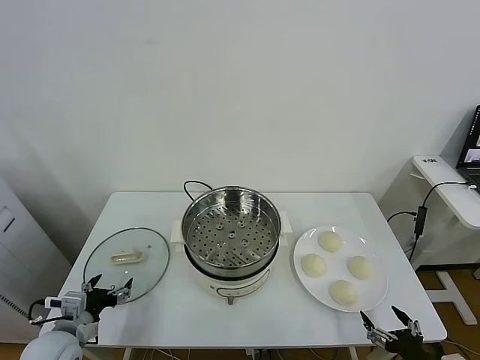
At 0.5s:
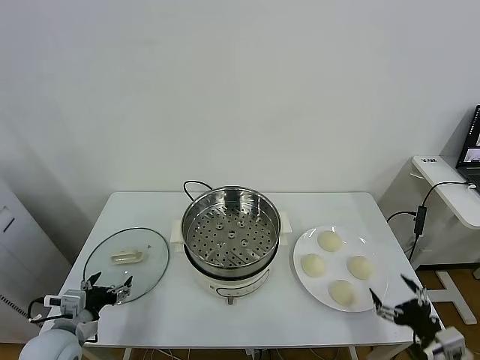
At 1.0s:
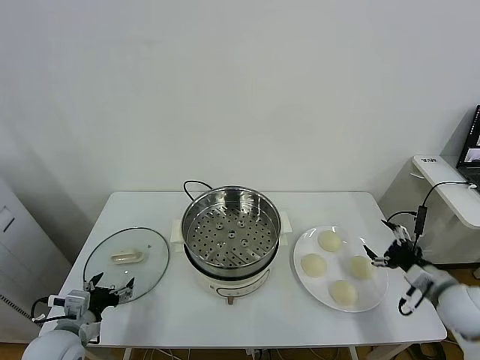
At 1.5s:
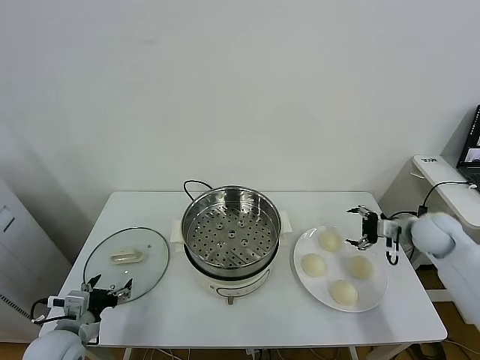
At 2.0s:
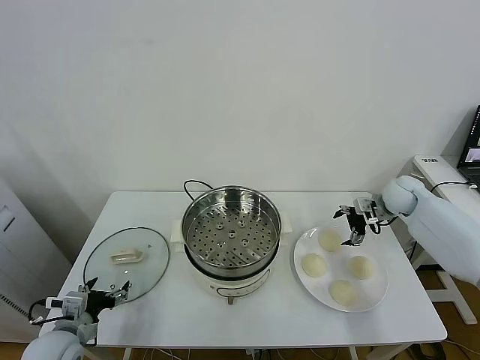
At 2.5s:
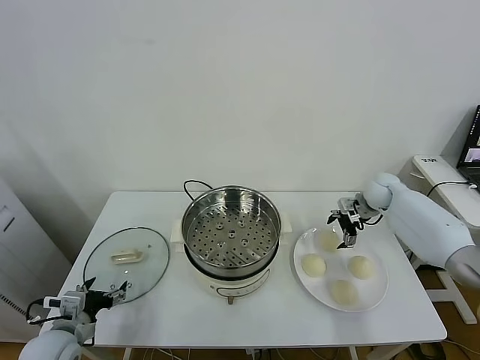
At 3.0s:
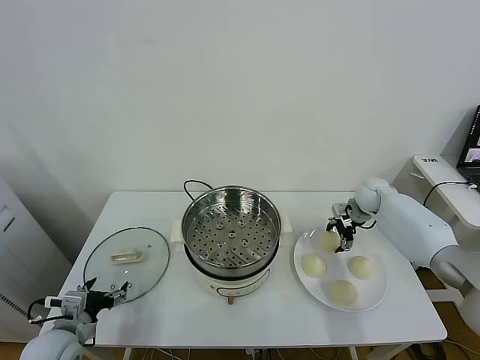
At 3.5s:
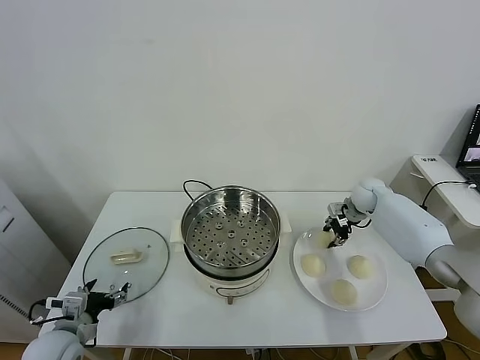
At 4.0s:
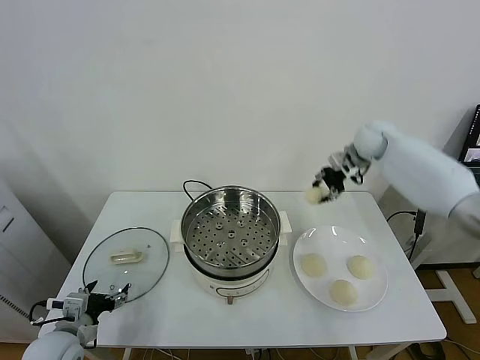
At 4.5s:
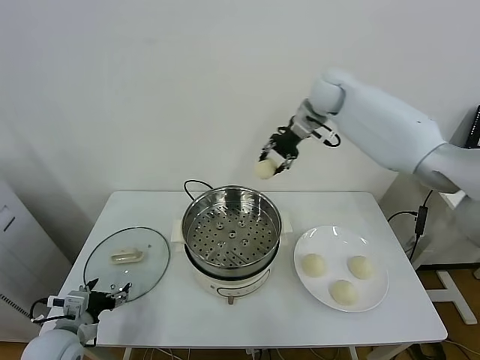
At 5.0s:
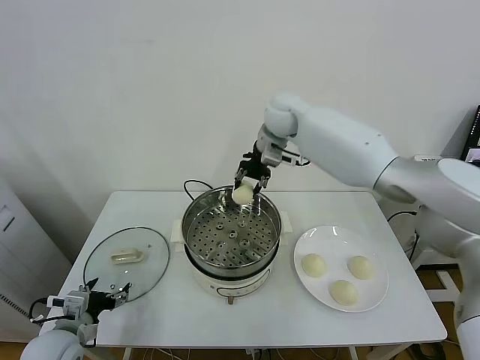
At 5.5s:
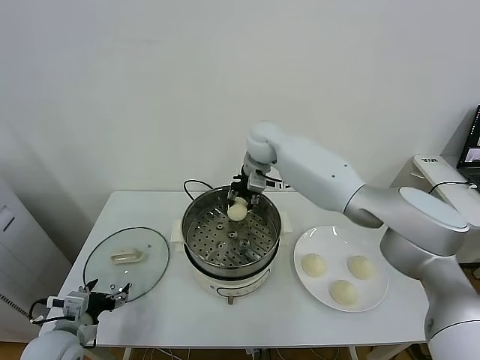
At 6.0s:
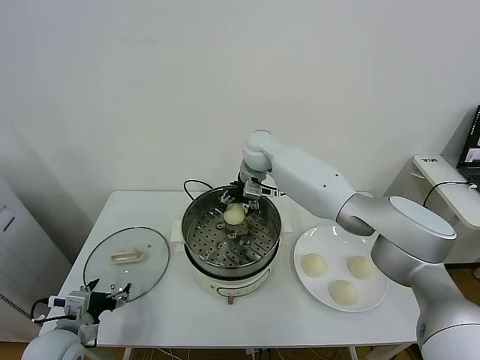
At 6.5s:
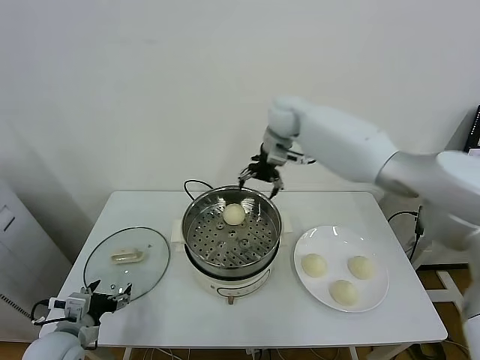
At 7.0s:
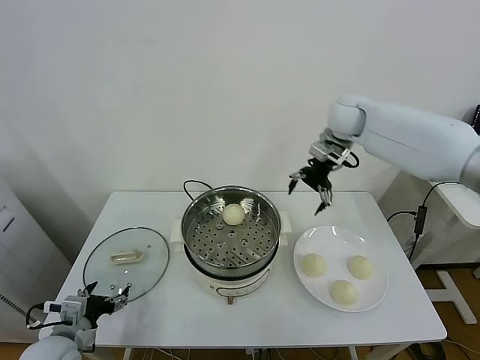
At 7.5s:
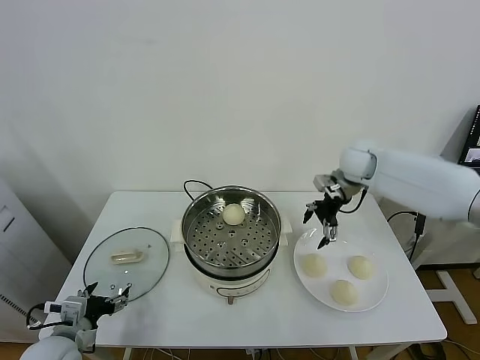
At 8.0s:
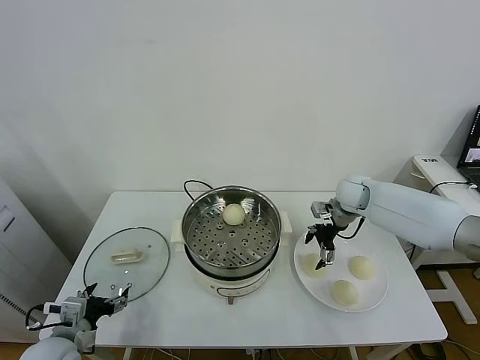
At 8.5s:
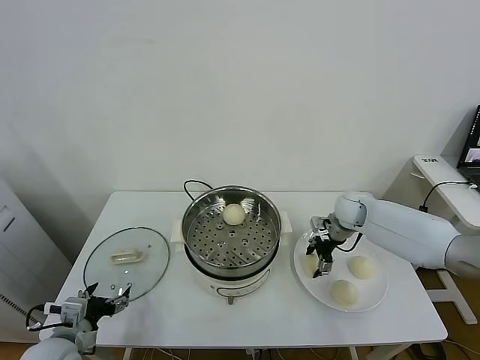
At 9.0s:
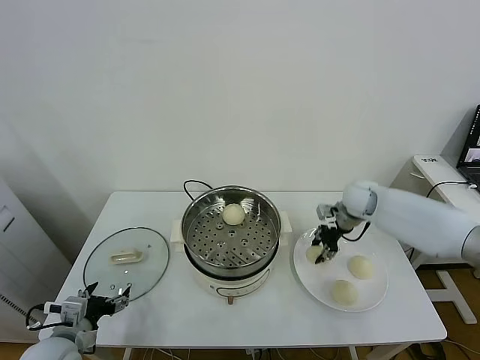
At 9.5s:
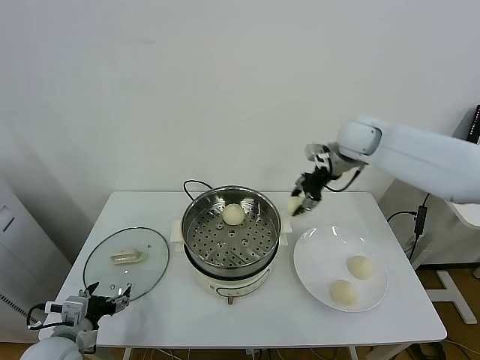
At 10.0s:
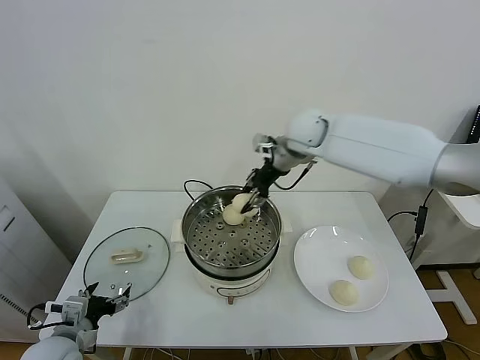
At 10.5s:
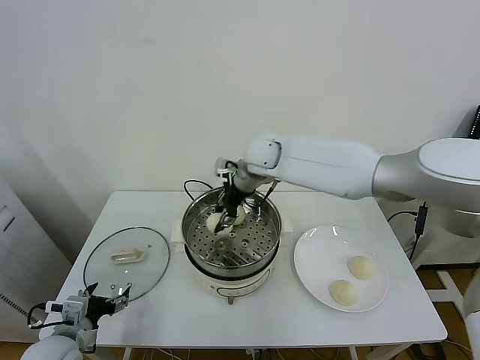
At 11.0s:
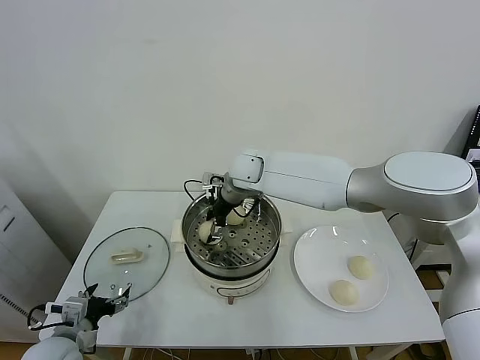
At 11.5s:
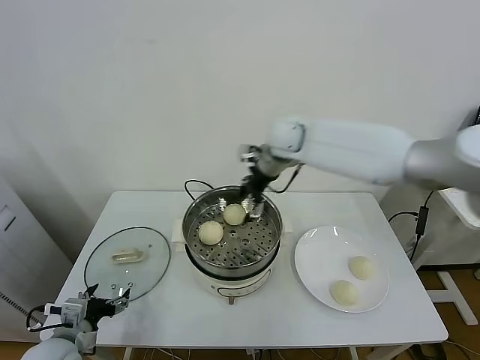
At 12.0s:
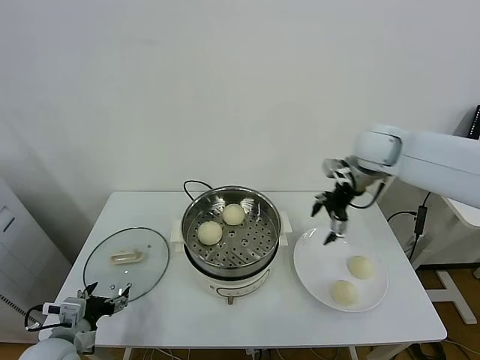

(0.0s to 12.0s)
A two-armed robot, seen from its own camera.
Task of the whole recording: take steamed baozi put them in steamer.
Step, 0.0s - 3.0s: Grasp the baozi in the plate with right gripper.
Step, 3.5s - 6.0s: Place the baozi on the steamer with right gripper.
Step, 6.5s - 8.5s: Grasp the baozi in the plate with right gripper.
Step, 9.0s - 11.0s: Place the baozi on the steamer with right gripper.
2.0s - 4.0s: The right gripper shifts some 20 cm upward, to the left and forward, and closes its fingers.
4.0s - 6.0s: The right gripper heads to the left, covering some 25 cm, and opens its fingers.
6.0s - 8.0s: The right gripper goes some 25 cm to the right and downward.
8.0s - 10.0s: The right gripper moves upward and to the left, roughly 25 cm, and closes.
10.0s - 12.0s: The right gripper shifts roughly 20 cm to the right, and opens up.

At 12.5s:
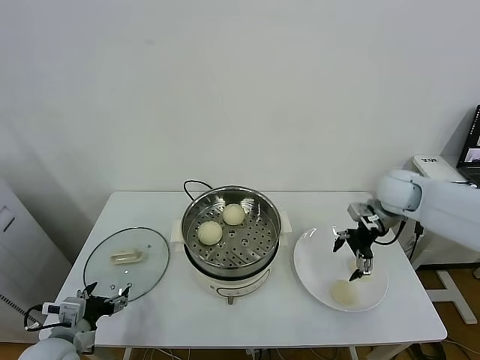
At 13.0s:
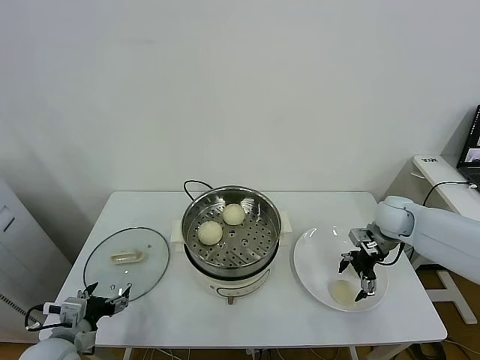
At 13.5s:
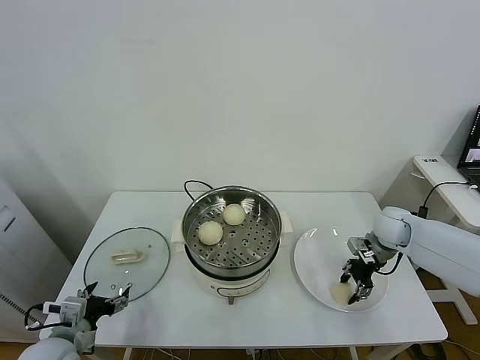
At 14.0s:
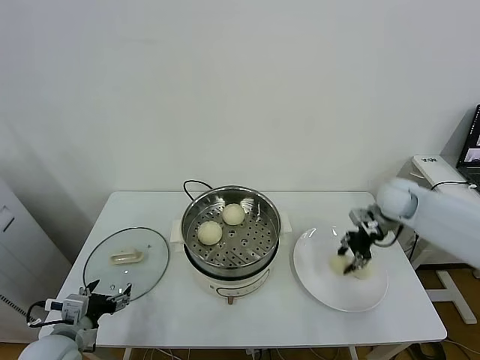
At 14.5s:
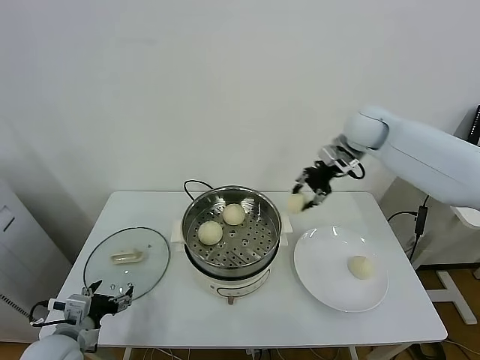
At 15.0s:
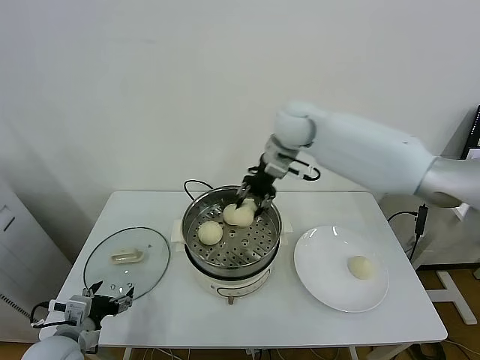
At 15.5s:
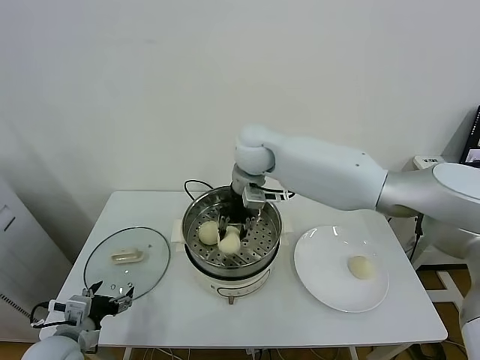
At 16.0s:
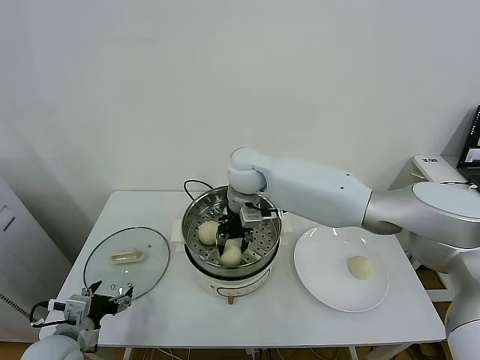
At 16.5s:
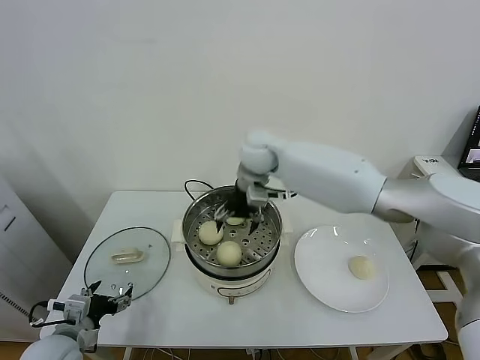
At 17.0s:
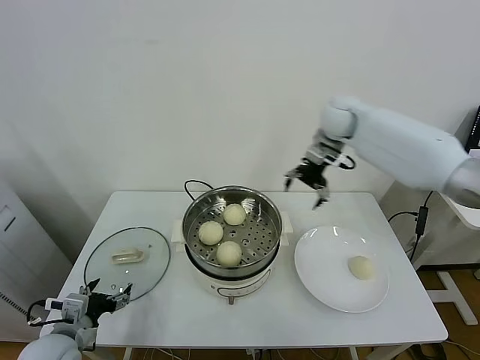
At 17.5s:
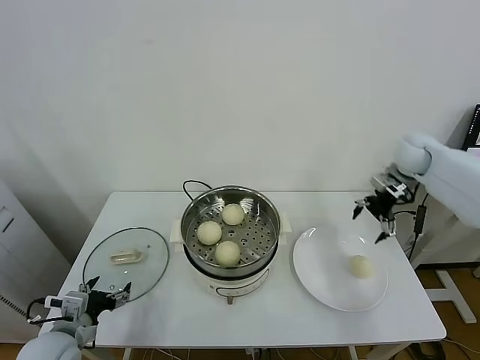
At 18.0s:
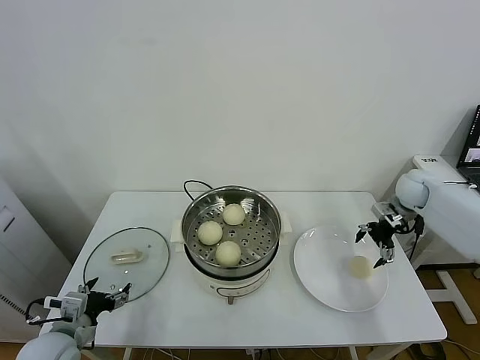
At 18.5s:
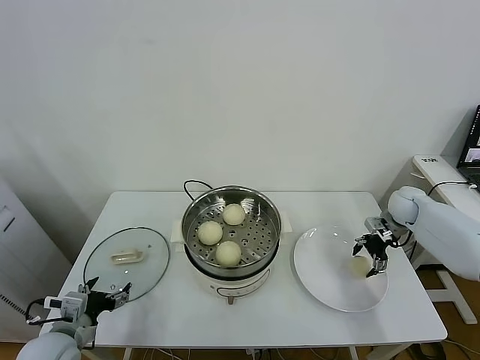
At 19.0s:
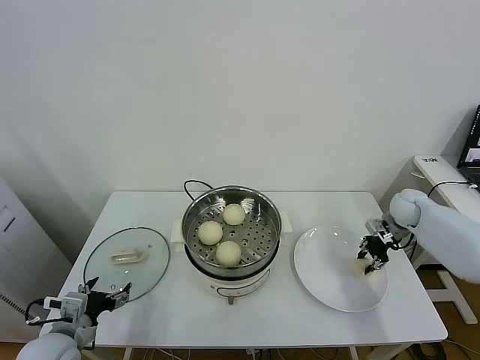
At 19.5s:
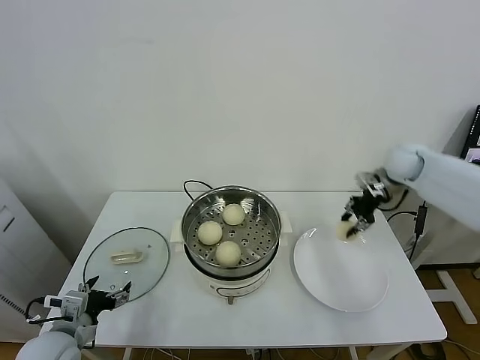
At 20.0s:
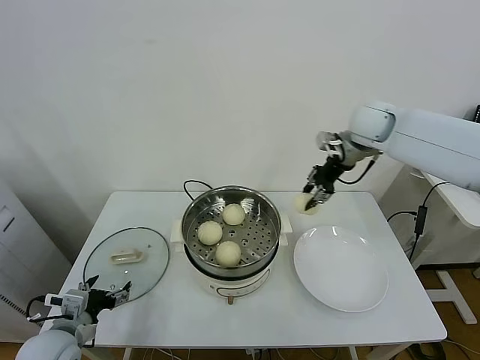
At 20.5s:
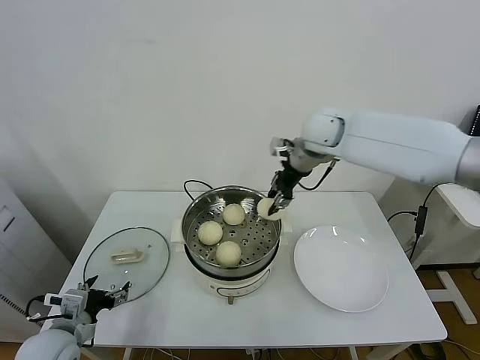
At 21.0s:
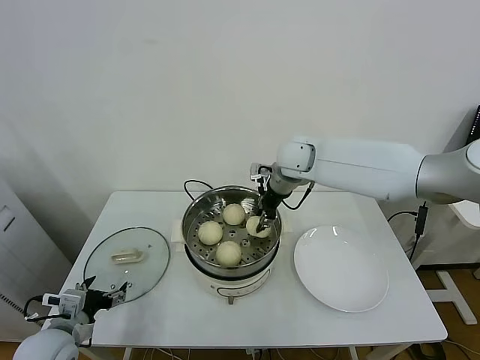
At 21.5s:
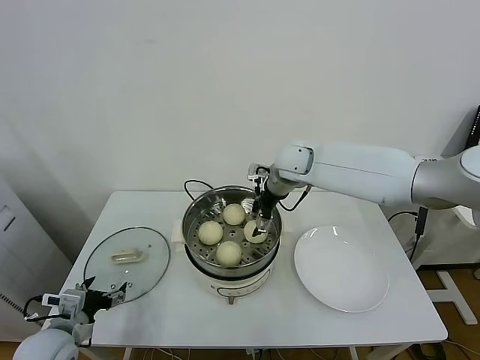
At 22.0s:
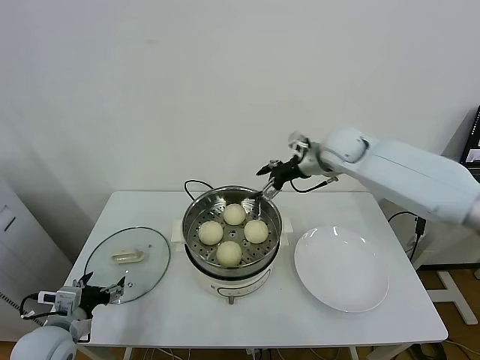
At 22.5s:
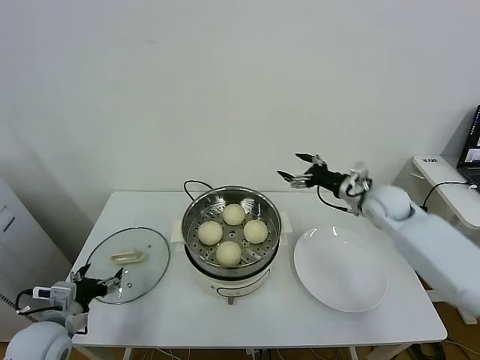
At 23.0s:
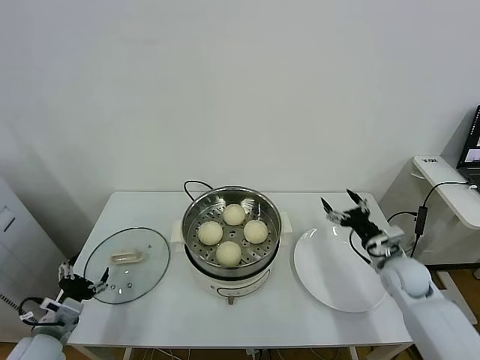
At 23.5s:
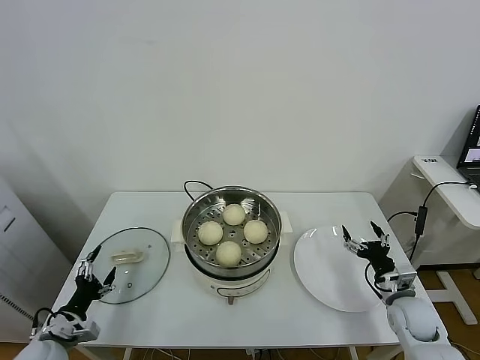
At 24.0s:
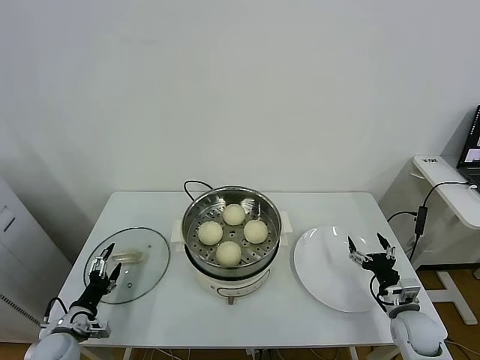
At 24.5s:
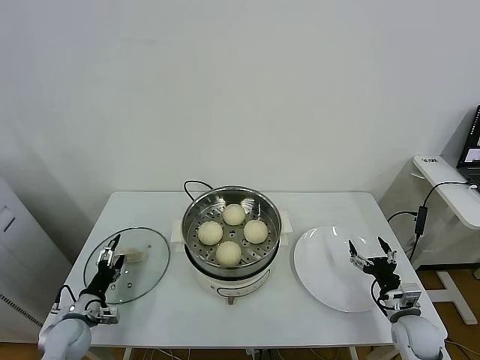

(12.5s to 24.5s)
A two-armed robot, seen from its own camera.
Task of the whole recording: take steamed baozi put them in steamer.
Step, 14.0s - 16.0s: Place the baozi on the steamer with right gripper.
Step, 16.5s - 18.5s: Grasp the baozi in the plate with right gripper.
Step, 19.0s - 21.5s: Place the baozi on the steamer with right gripper.
12.5s - 14.5s: The right gripper moves upward, to the left and forward, about 20 cm, and closes its fingers.
14.5s - 16.5s: The right gripper shifts some 20 cm to the left, and opens.
16.5s - 18.5s: The right gripper shifts about 40 cm to the right and downward.
18.5s - 20.5s: The right gripper is displaced to the left and upward by about 35 cm, and closes up.
20.5s - 22.5s: The right gripper shifts some 25 cm to the right, downward and backward, and opens.
22.5s - 24.5s: The left gripper moves downward, about 15 cm. The right gripper is displaced backward and downward by approximately 30 cm.

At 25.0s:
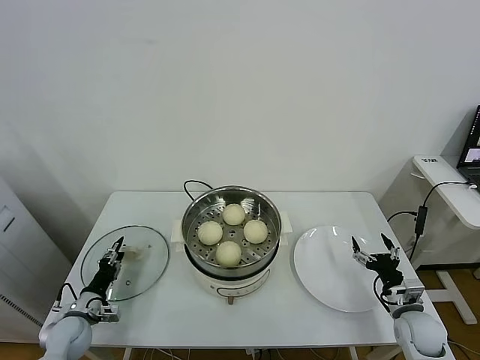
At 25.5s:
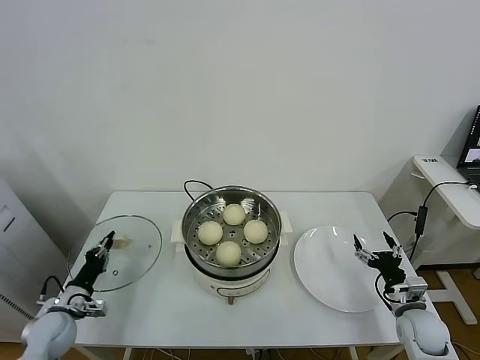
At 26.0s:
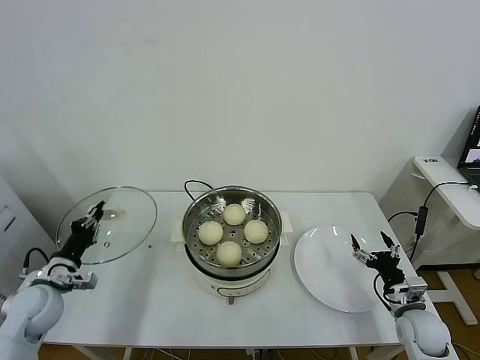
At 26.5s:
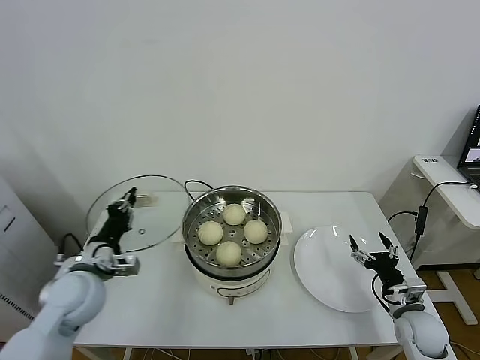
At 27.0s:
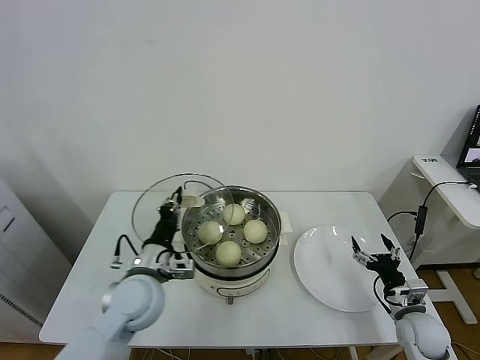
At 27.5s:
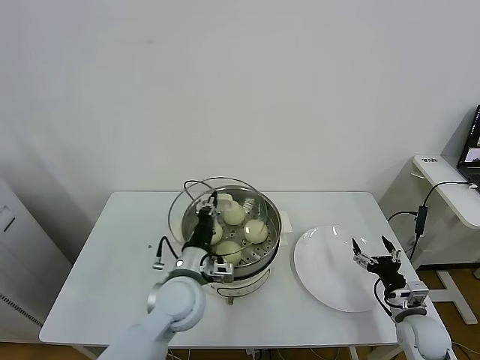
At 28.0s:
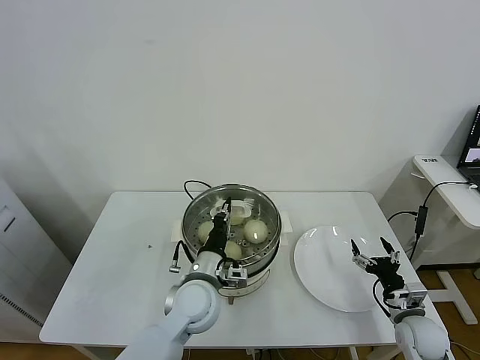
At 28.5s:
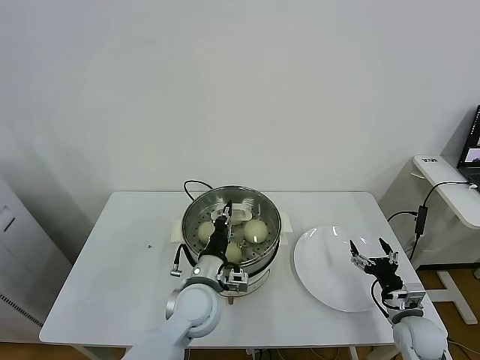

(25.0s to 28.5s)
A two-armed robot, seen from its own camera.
Task of the whole recording: take steamed baozi put them in steamer.
25.0s - 27.0s: The left gripper shifts roughly 30 cm to the right and upward, and closes.
27.0s - 28.5s: The left gripper heads to the right, covering approximately 10 cm.
